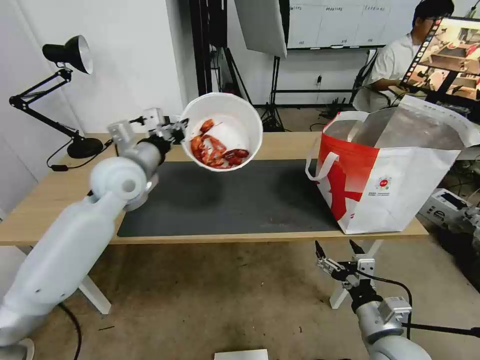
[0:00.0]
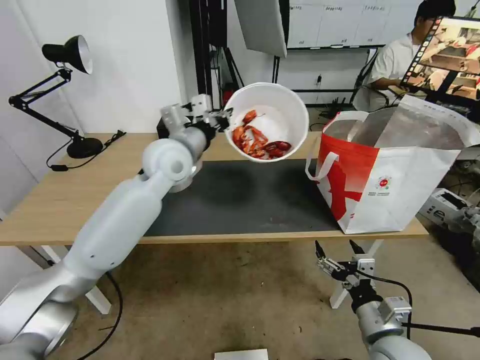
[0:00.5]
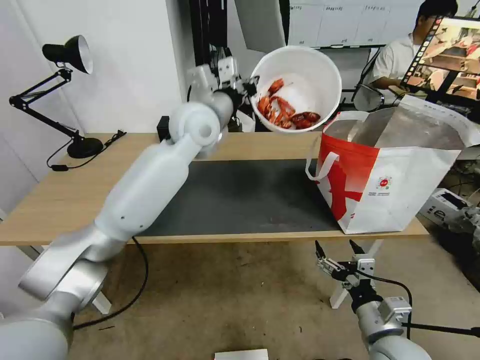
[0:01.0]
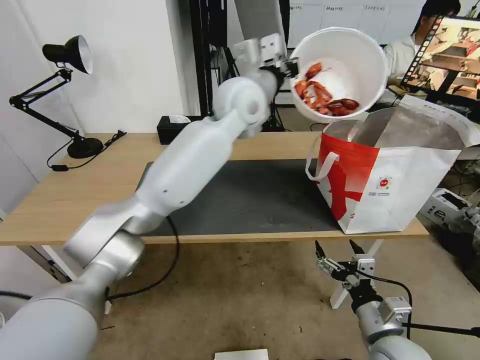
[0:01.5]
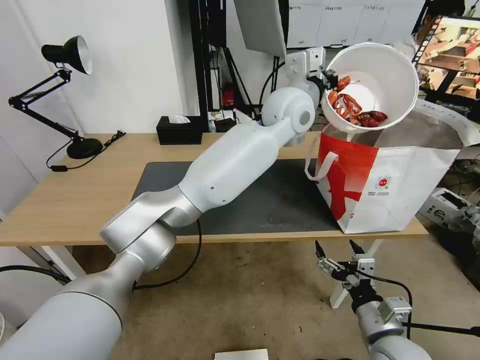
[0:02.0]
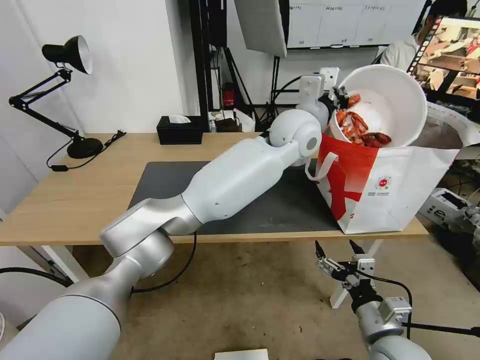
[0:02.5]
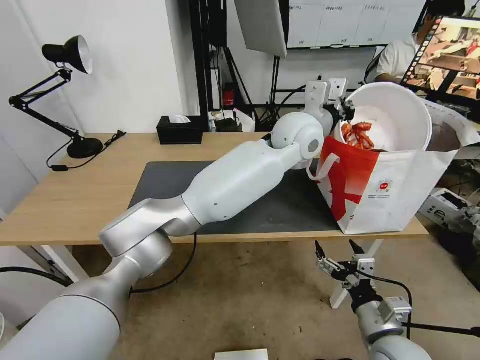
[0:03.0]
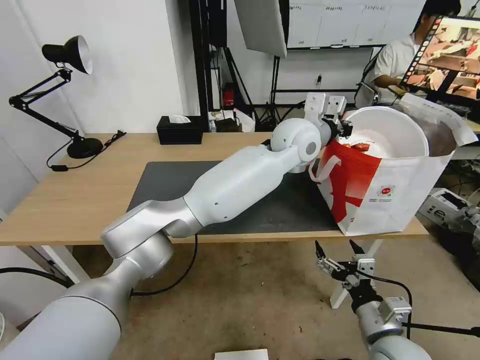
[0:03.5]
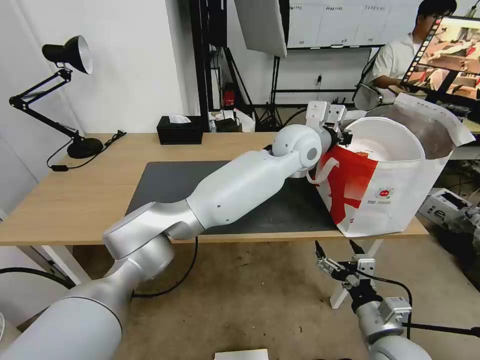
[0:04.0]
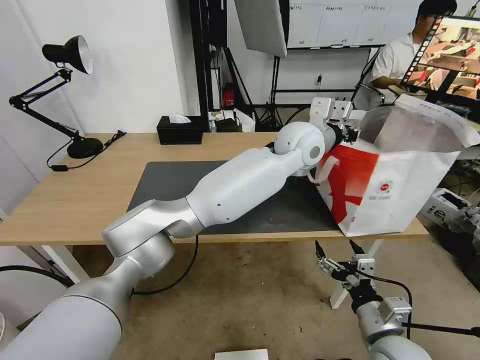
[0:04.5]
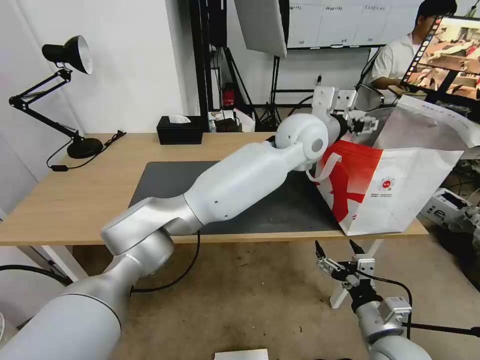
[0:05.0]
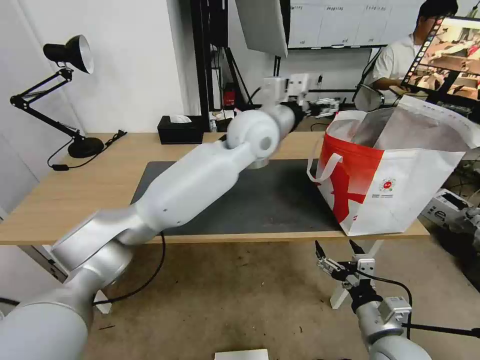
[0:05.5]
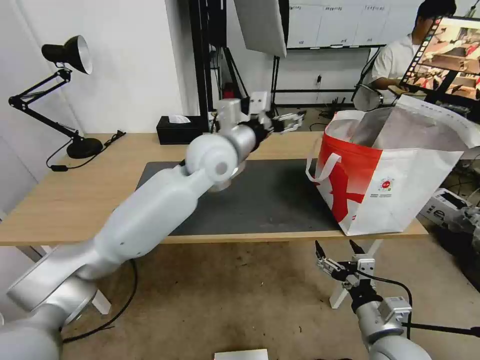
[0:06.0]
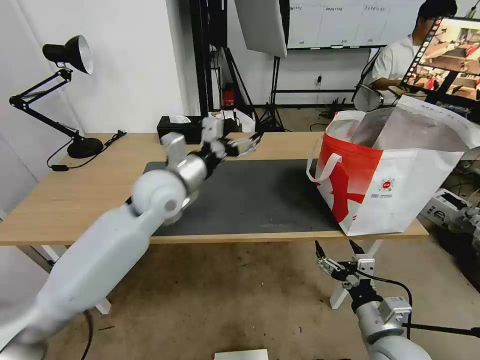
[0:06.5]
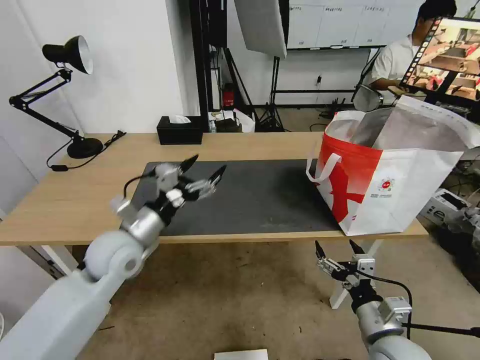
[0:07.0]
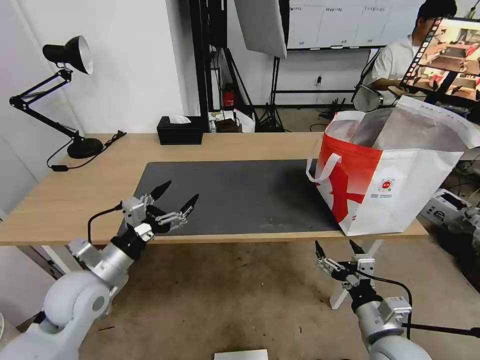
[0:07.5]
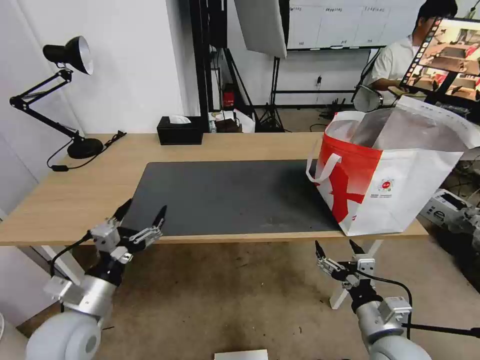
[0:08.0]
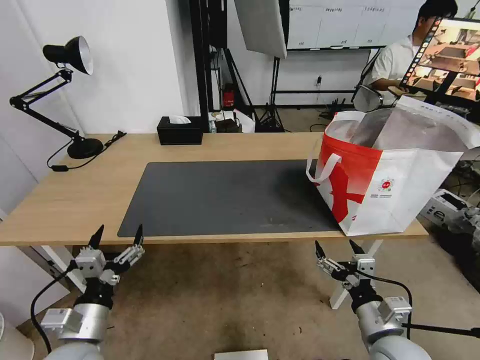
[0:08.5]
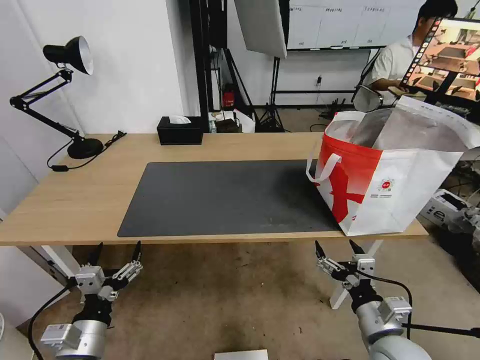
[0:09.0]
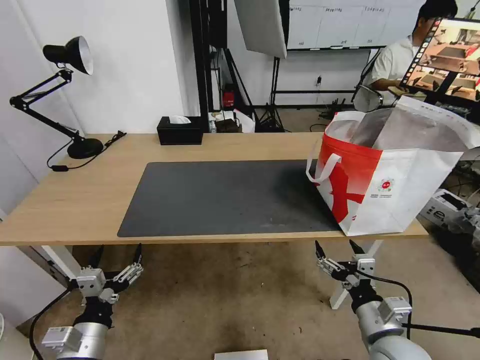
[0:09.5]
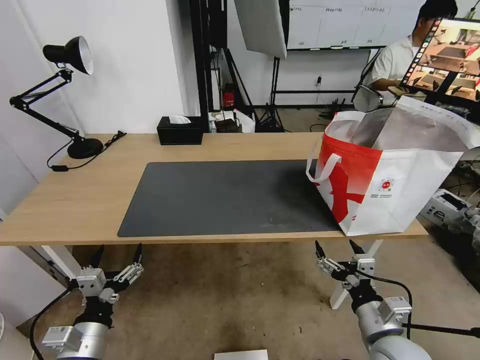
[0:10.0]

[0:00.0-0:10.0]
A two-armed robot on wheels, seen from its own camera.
Task of the whole recording: Pick up the trash from the table and place it into the takeout bag.
0:00.0 to 0:02.0: The left gripper moves to the right, about 30 cm.
0:02.0 to 0:04.0: The left gripper travels downward by some 5 cm.
0:04.0 to 0:06.0: The left gripper shifts roughly 20 cm to the left, and opens.
0:06.0 to 0:08.0: The left gripper shifts roughly 40 cm backward, to the left and downward.
0:08.0 to 0:10.0: The left gripper moves backward and downward, roughly 10 cm.
